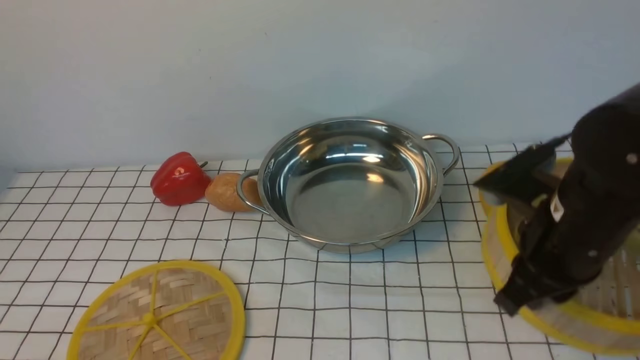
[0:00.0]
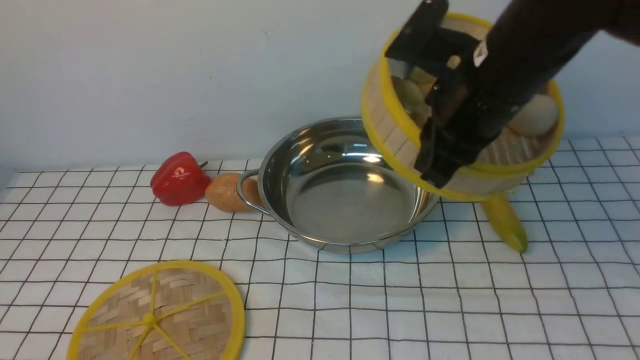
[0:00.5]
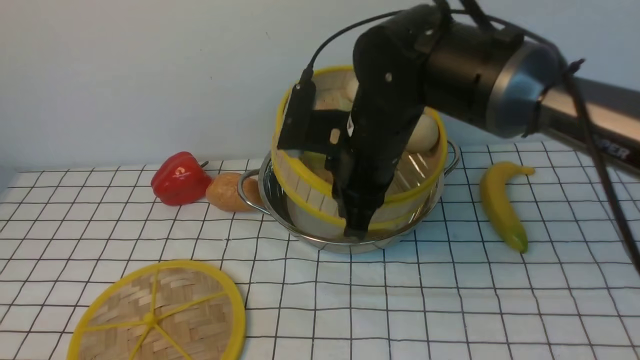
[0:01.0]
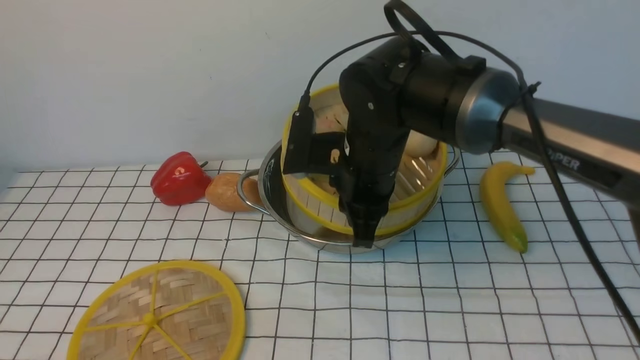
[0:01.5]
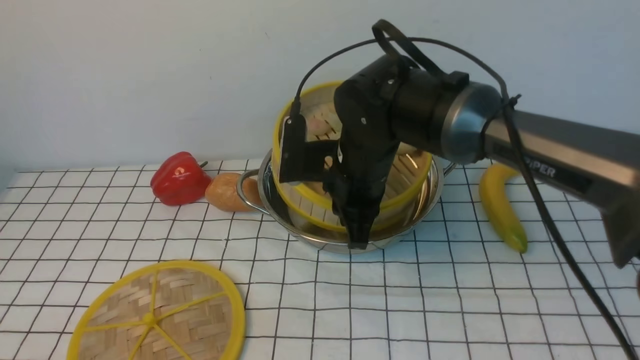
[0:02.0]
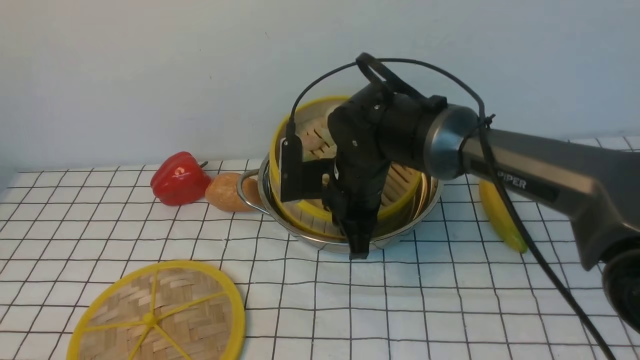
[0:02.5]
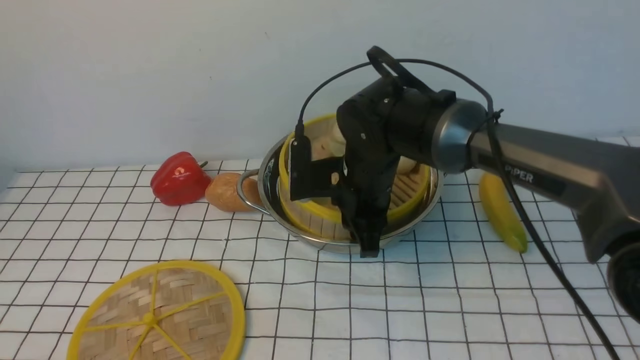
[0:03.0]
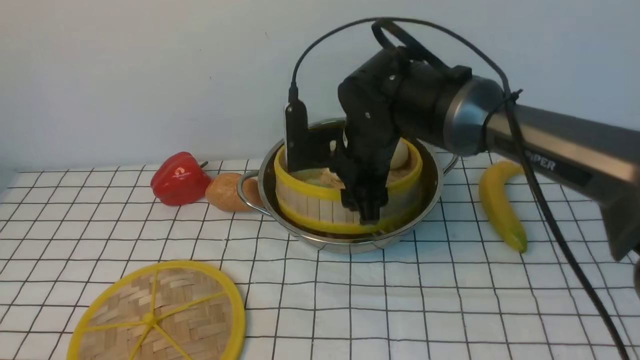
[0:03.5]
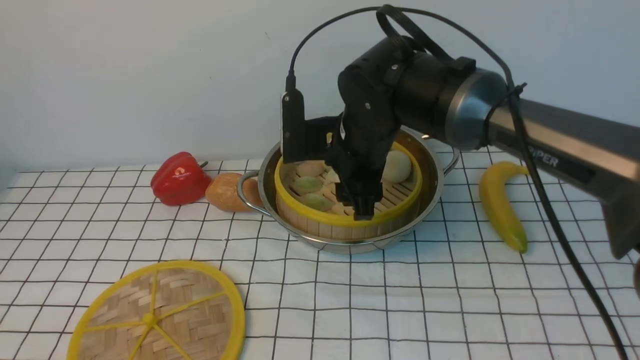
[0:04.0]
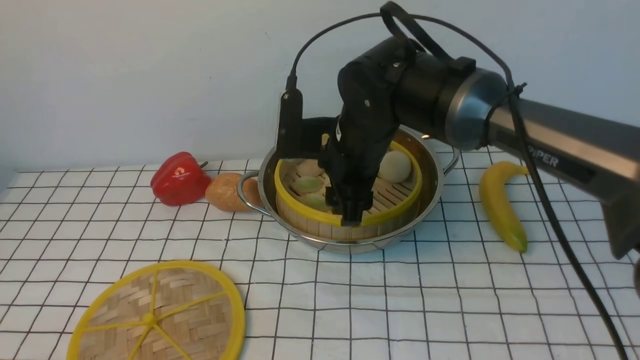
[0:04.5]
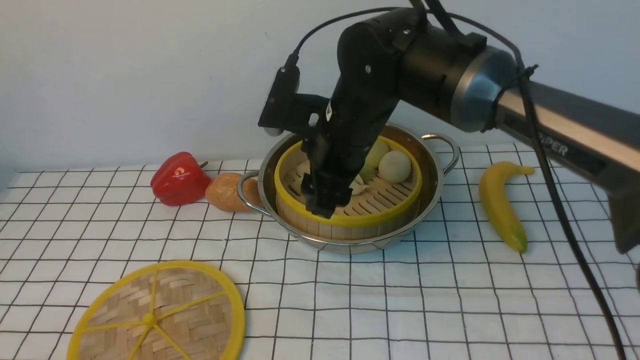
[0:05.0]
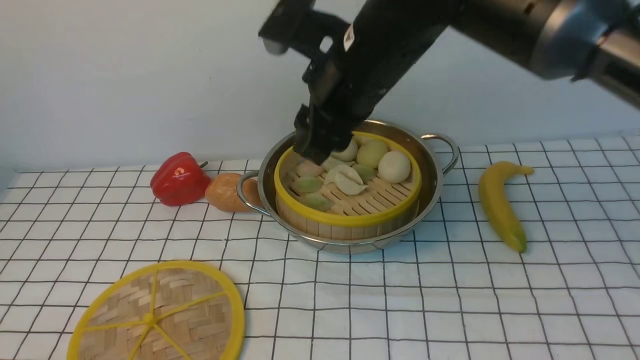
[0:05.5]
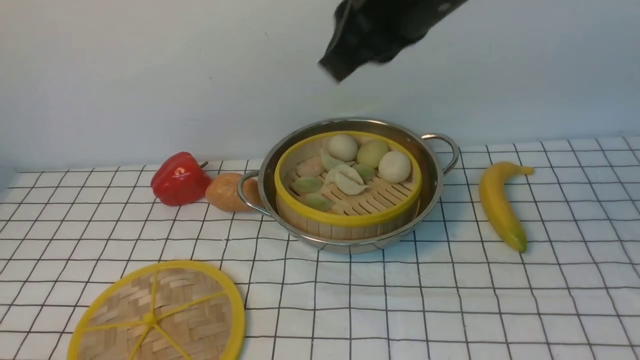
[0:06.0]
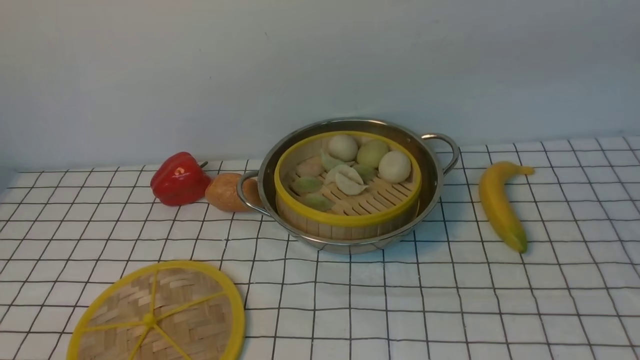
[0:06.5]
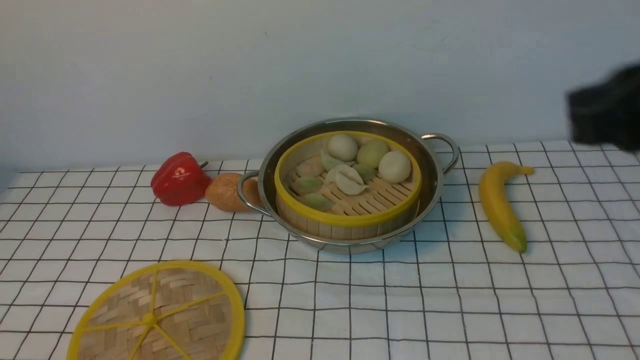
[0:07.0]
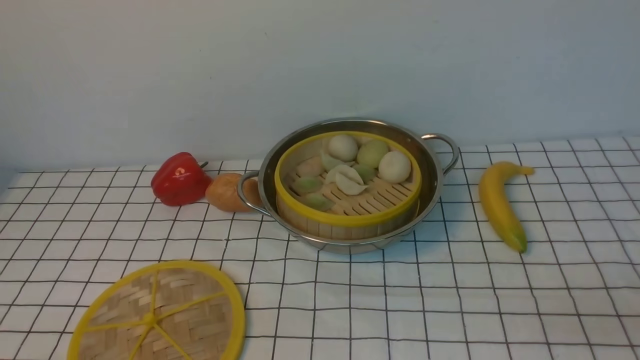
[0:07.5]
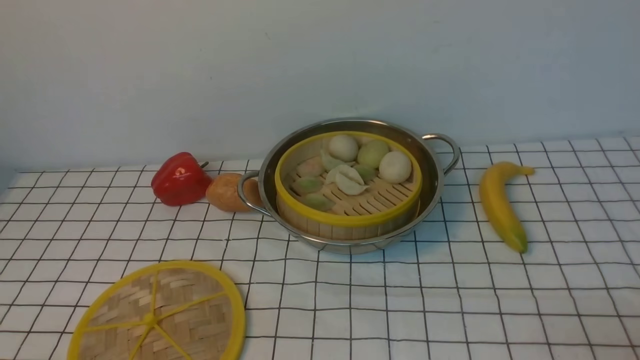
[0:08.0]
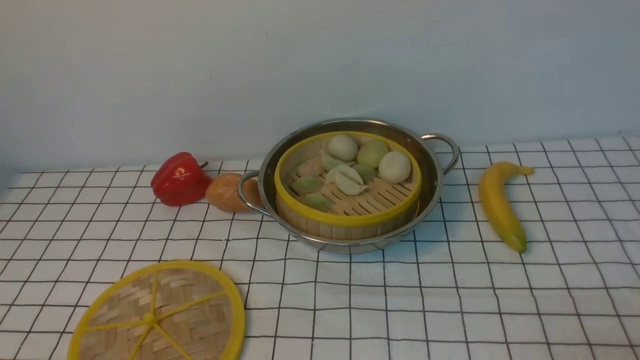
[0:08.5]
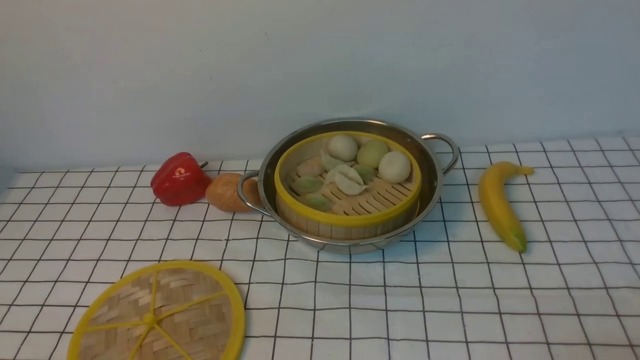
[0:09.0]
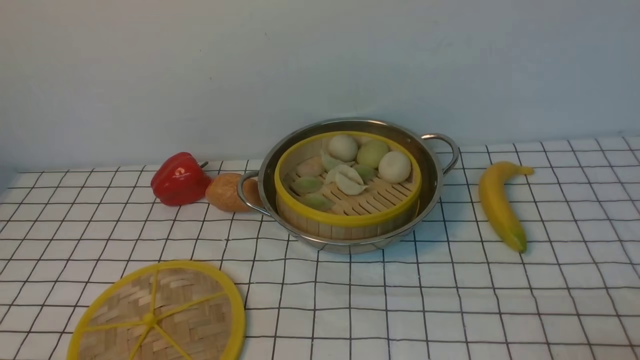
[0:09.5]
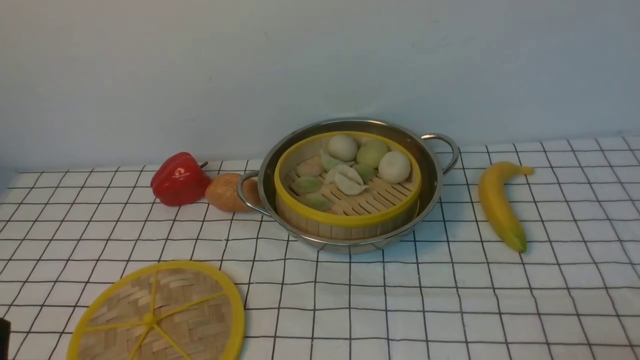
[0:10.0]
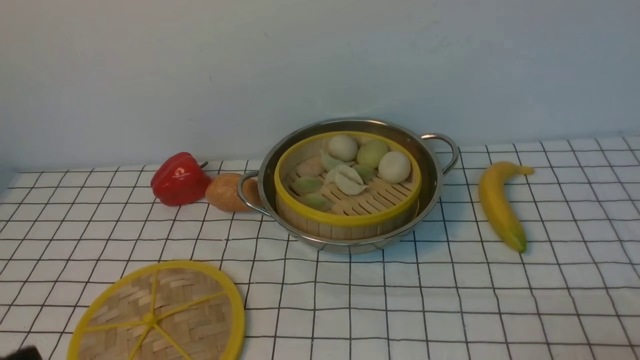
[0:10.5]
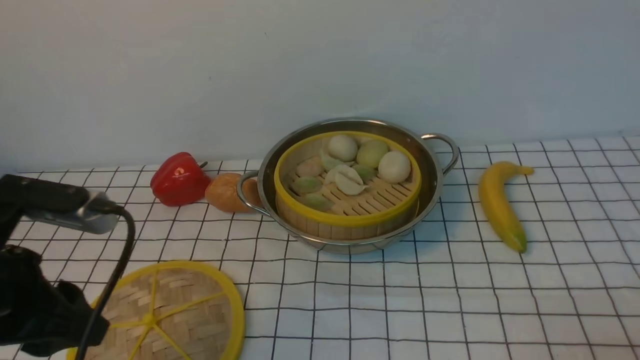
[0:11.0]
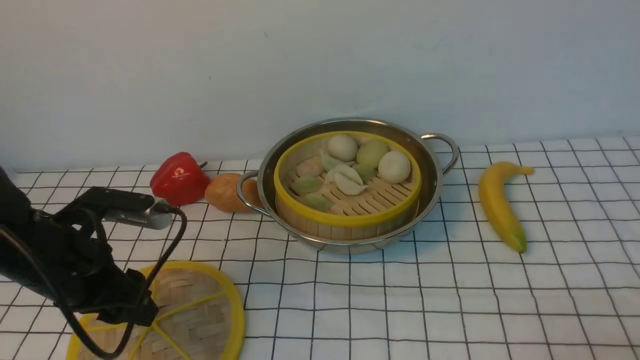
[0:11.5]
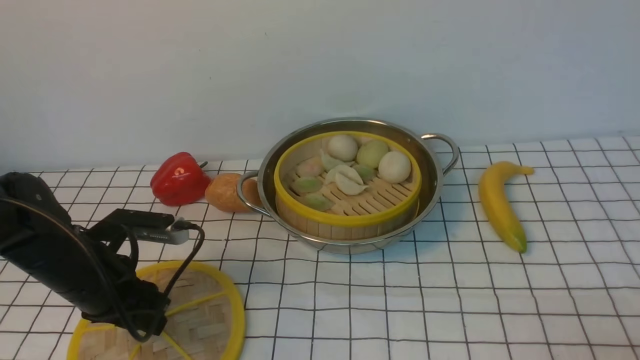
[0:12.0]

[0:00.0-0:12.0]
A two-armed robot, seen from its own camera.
Task of the whole recording: place the steamer in the pot on the white tablecloth, and put the lid on the steamer.
Step, 0:00.0 to 0:04.0: use the right arm to put the steamer into the iron steamer pot in the middle.
0:00.0 to 0:02.0: The right gripper shifts approximately 20 cm to the left and forward.
0:02.0 to 0:04.0: The right gripper opens.
0:04.0 to 0:06.0: The right gripper shifts some 20 cm upward and backward, and closes.
0:06.0 to 0:08.0: The right gripper travels downward, to the right and backward by roughly 40 cm.
0:10.0 to 0:12.0: The left gripper moves forward, roughly 25 cm.

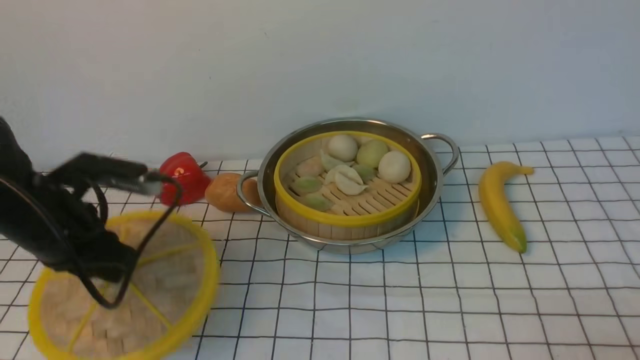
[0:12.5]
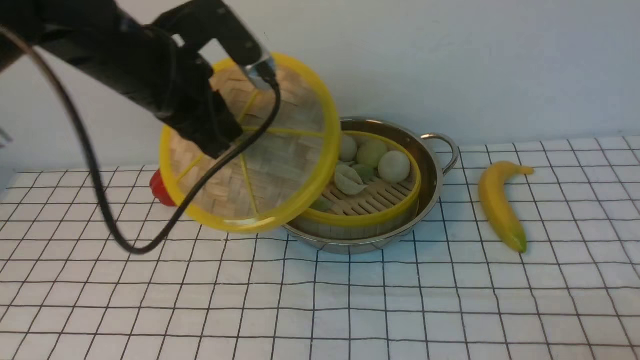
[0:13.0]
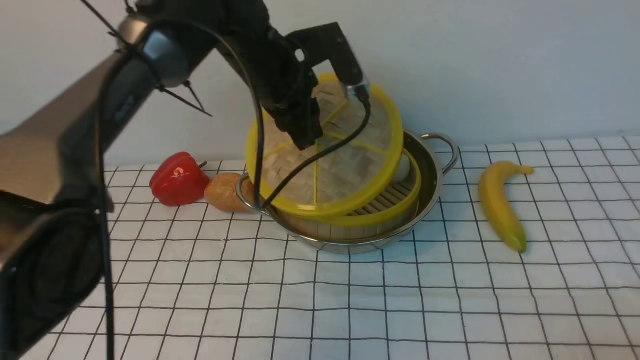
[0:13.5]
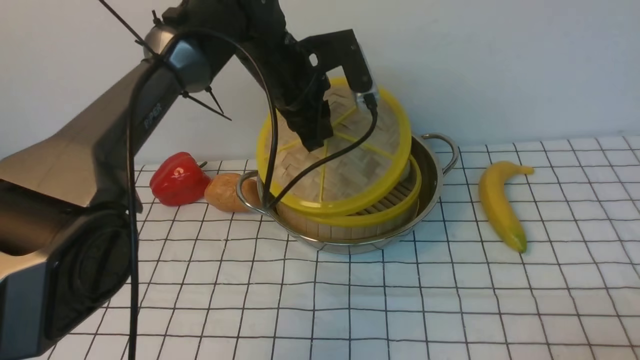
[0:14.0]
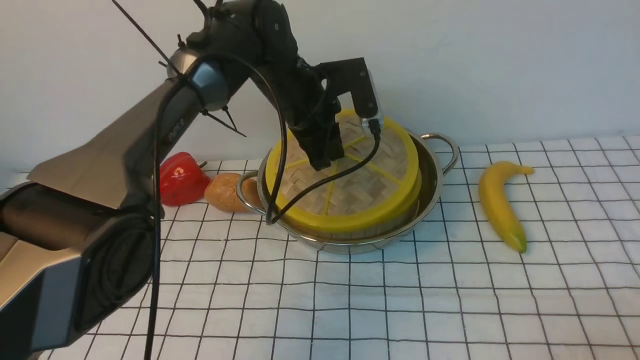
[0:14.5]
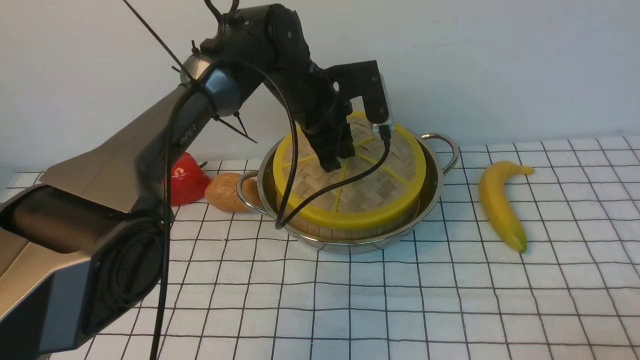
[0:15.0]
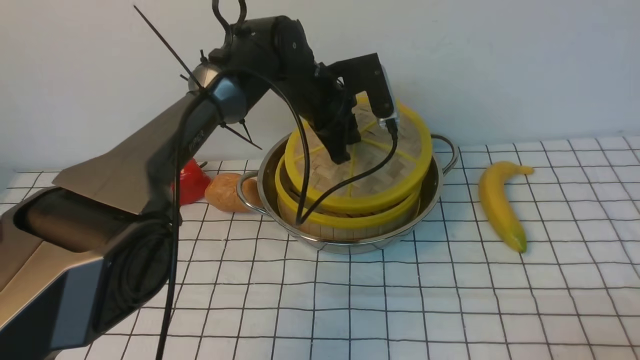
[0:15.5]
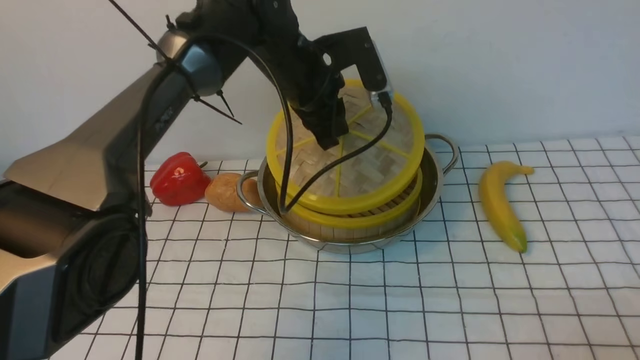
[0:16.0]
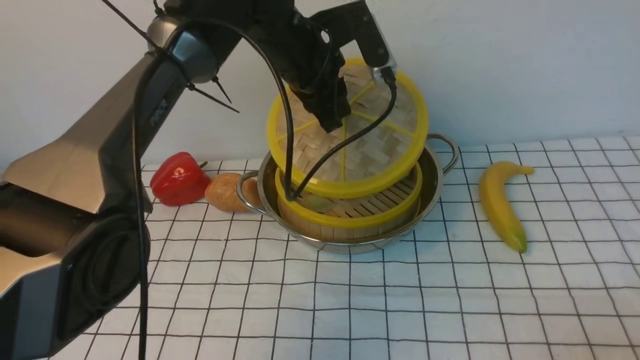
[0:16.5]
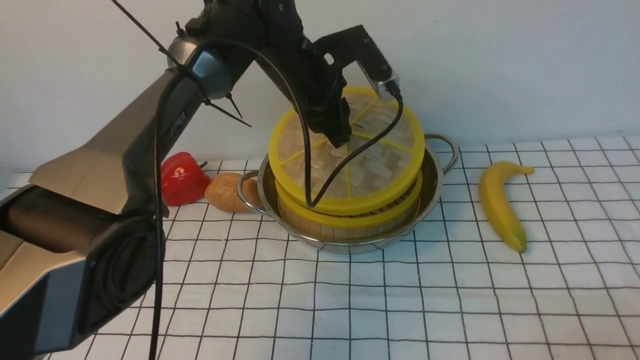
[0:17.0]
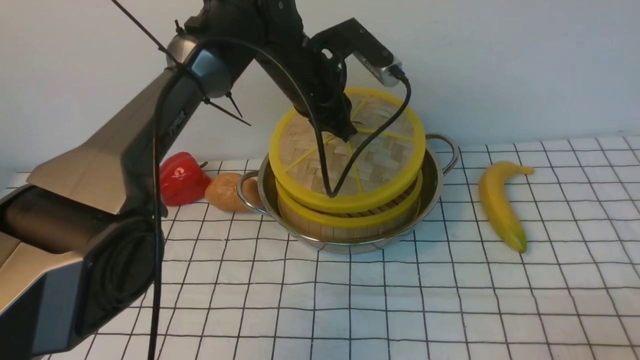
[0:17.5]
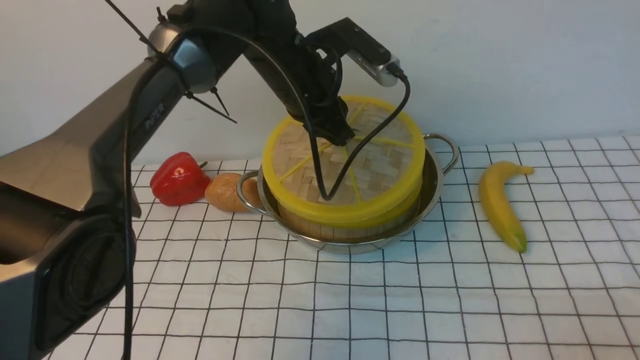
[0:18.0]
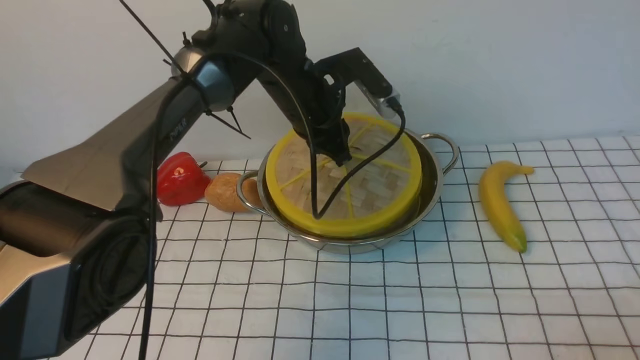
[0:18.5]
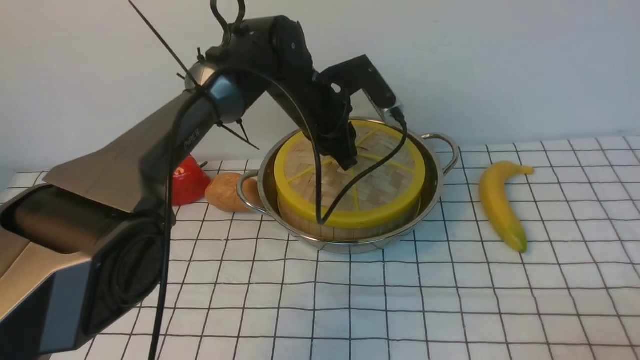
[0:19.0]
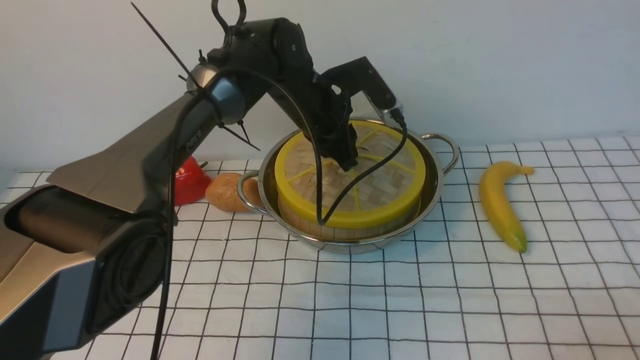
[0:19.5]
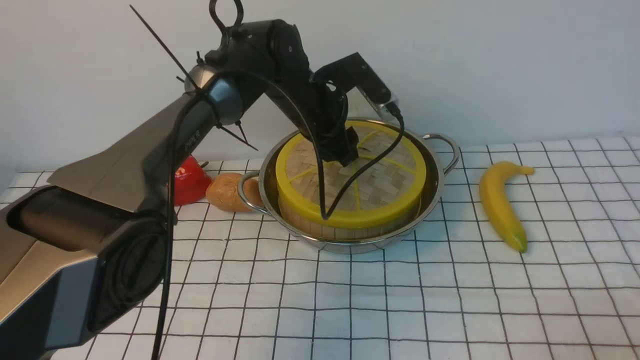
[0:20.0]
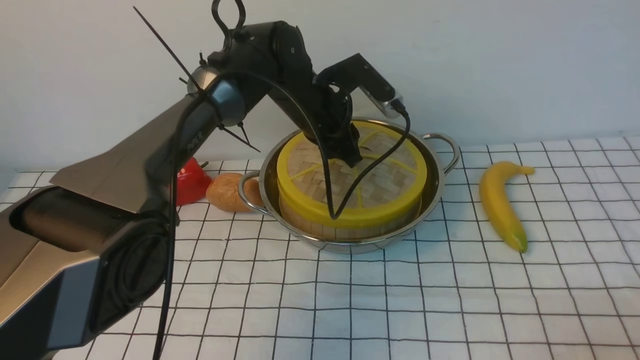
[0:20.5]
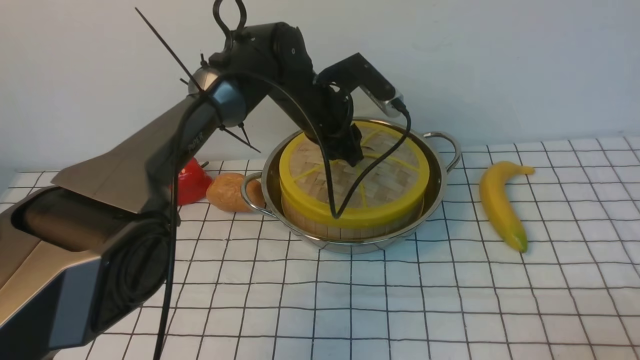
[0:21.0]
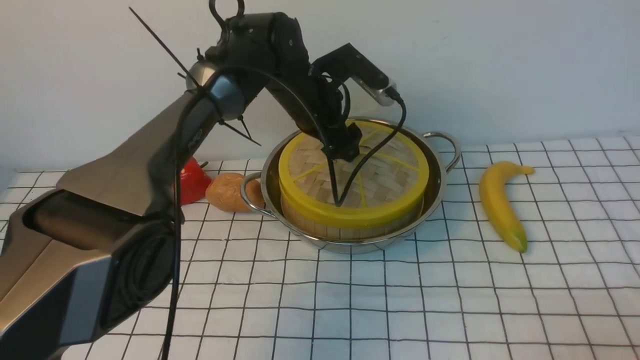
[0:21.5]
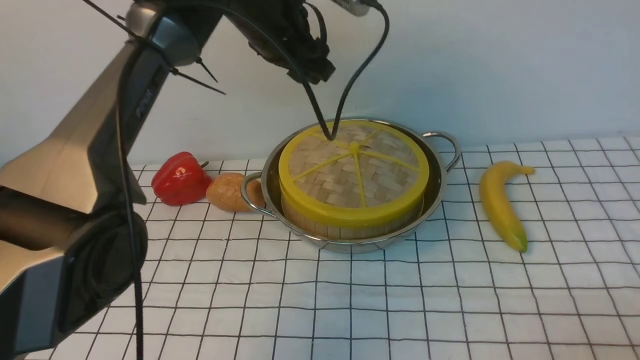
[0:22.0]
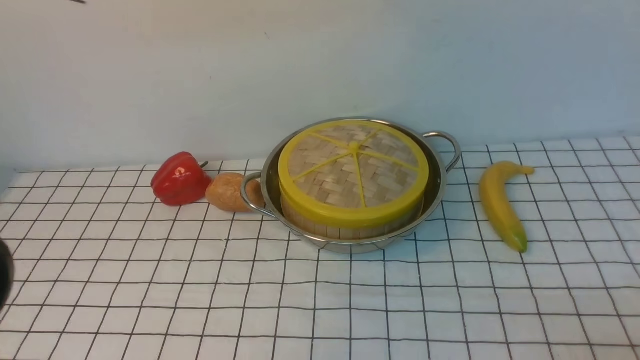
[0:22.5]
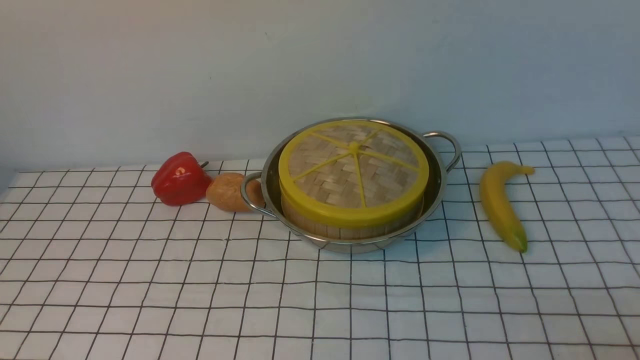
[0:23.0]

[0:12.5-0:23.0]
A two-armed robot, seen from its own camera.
Task of the whole recording: place the steamer in the pot on the white tablecloth, and put the lid on the steamer.
Step, 0:12.5 to 0:21.5: use the left arm to place the steamer lid on the steamer.
0:12.5 to 0:14.5: The left gripper shifts about 25 cm to the right and forward.
0:16.5 to 0:19.0: The left gripper shifts approximately 5 cm downward.
0:19.0 to 0:21.0: The left gripper opens up.
0:21.0 to 0:23.0: The left gripper shifts roughly 35 cm upward and backward, and closes its fingers.
